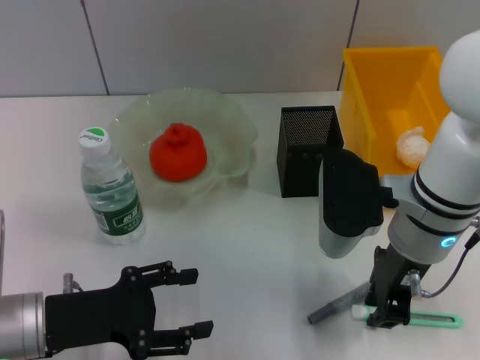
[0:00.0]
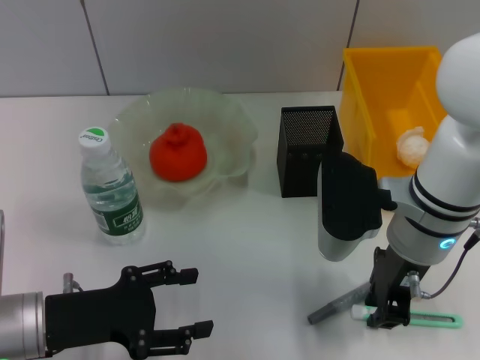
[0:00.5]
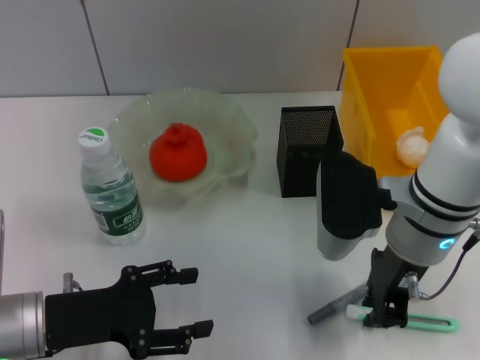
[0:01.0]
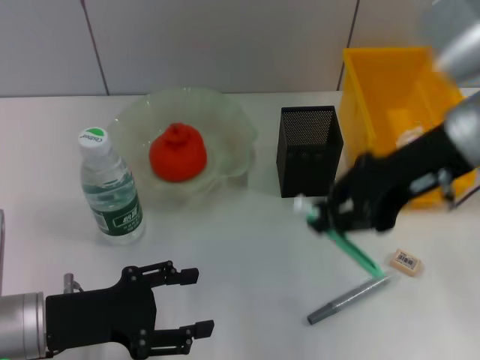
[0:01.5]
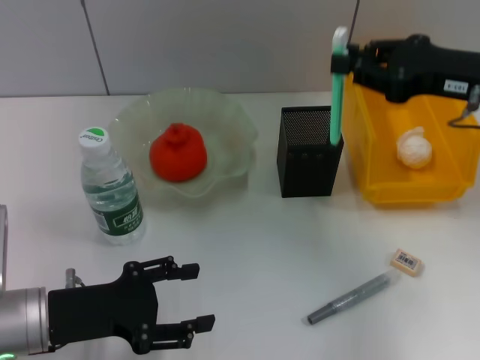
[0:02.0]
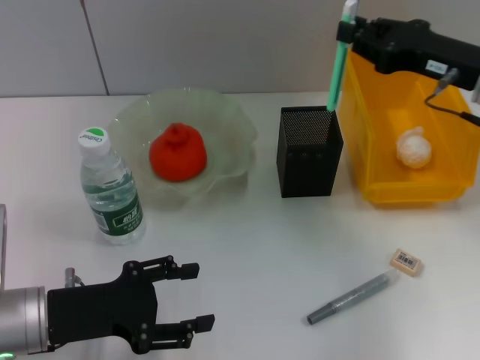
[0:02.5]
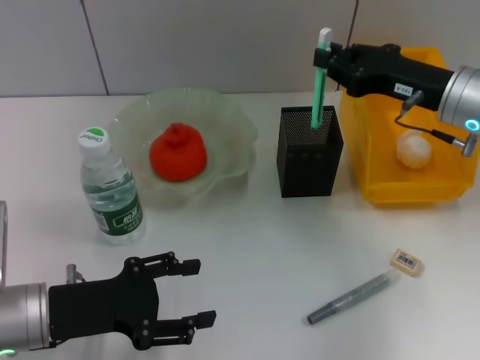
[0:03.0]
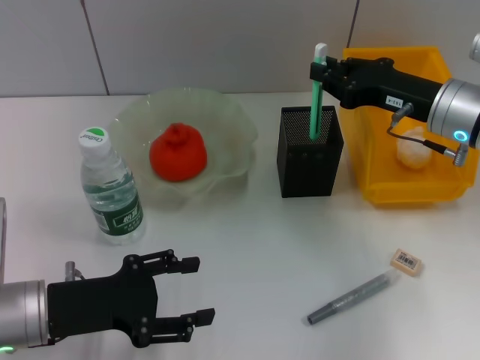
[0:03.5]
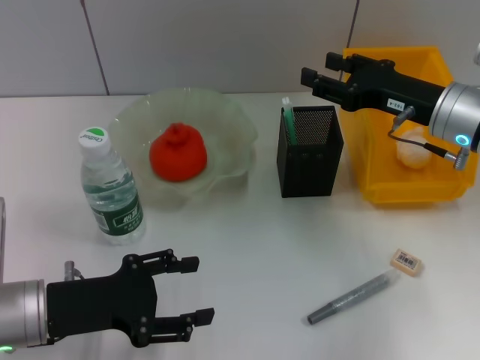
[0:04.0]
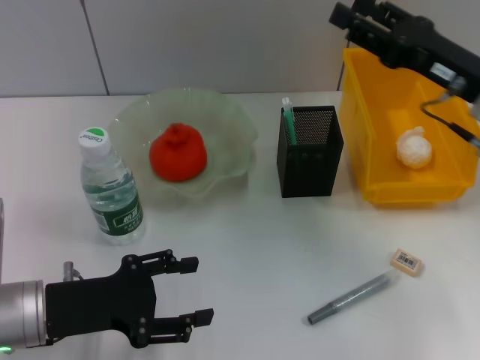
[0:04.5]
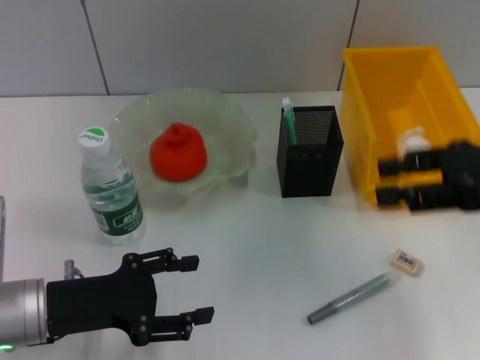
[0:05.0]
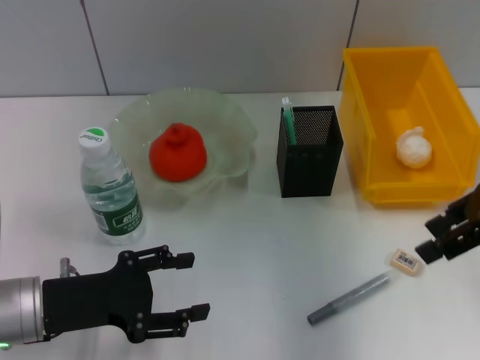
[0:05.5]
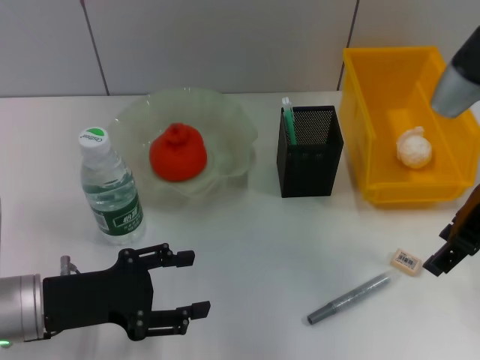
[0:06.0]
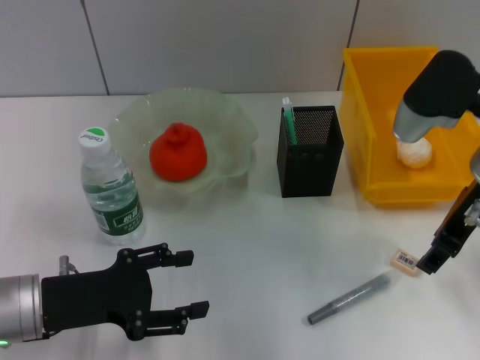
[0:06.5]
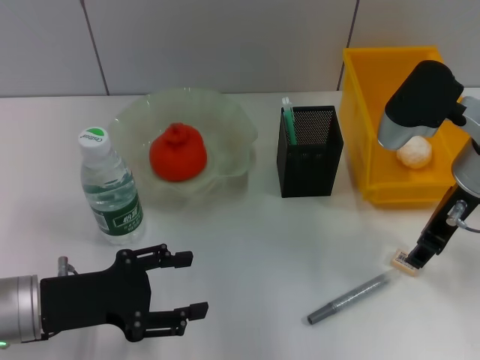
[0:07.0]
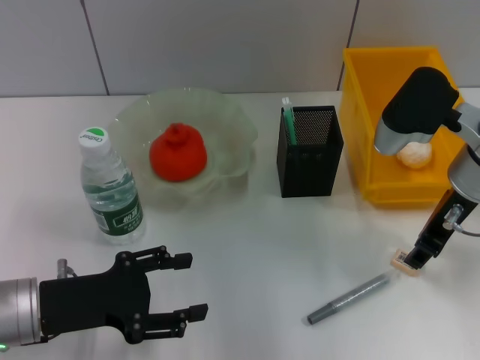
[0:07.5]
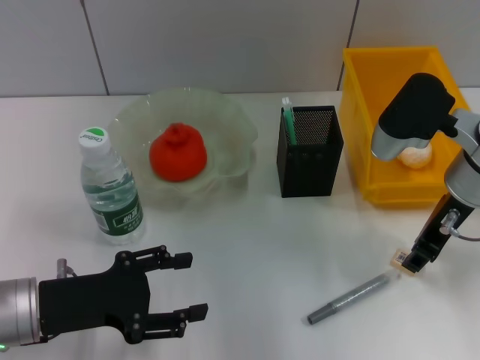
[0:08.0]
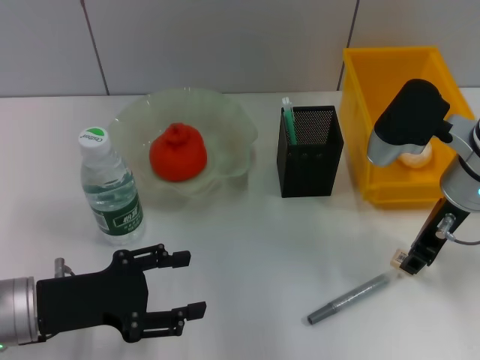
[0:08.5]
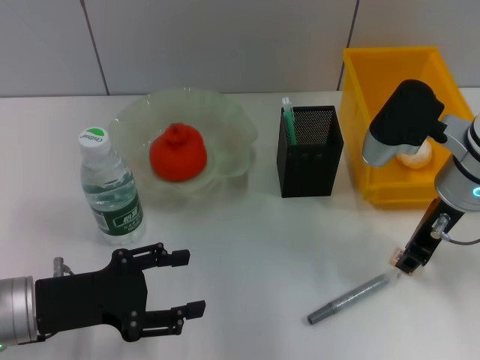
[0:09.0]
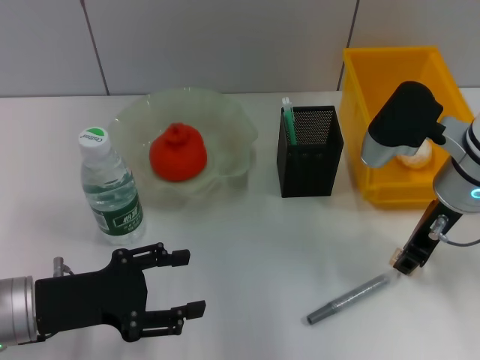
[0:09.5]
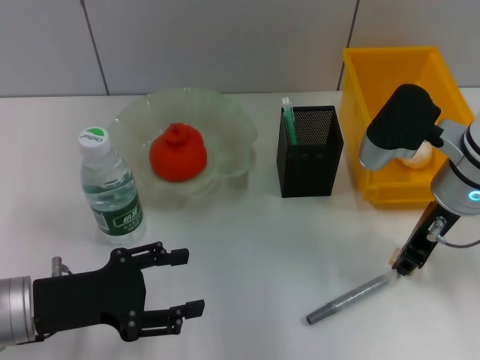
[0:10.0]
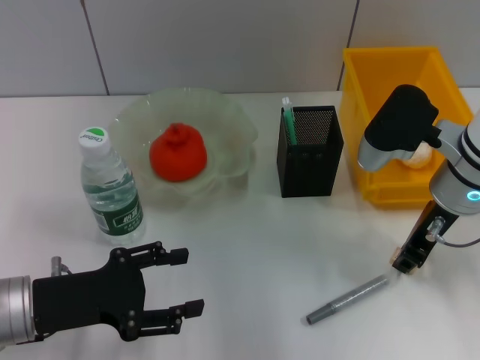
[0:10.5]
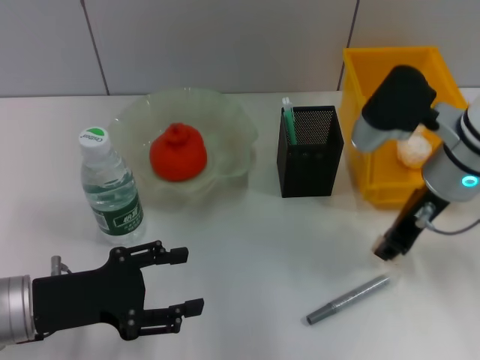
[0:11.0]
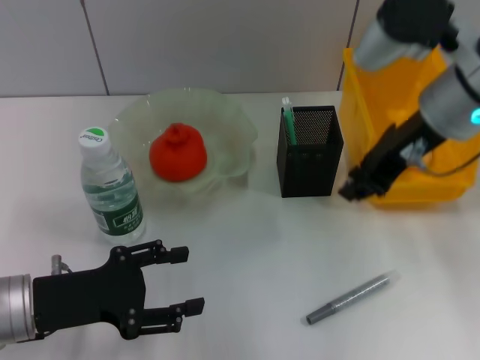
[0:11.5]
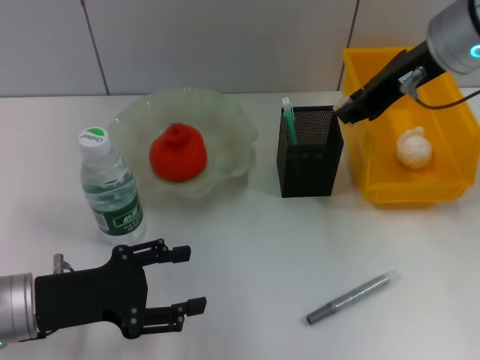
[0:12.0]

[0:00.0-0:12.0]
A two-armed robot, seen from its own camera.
Step, 0:01.0 to 0:03.5: Place the blue utility knife into the pen holder with the right hand.
Step, 0:04.5 to 0:10.5: Grab the eraser with the right hand.
0:00.0 to 0:02.0: The right gripper heads to the right and upward, covering some 15 cm.
0:02.0 to 0:04.0: The right gripper is displaced downward by some 5 cm, and opens its fingers.
0:04.0 to 0:06.0: The right gripper moves upward, approximately 10 cm.
0:06.0 to 0:08.0: The right gripper shifts roughly 5 cm downward.
0:08.0 to 0:10.0: There are only small adjustments of the grippers.
0:10.0 to 0:12.0: The right gripper is displaced upward by about 10 cm.

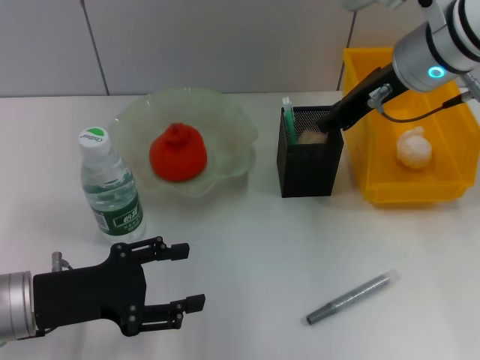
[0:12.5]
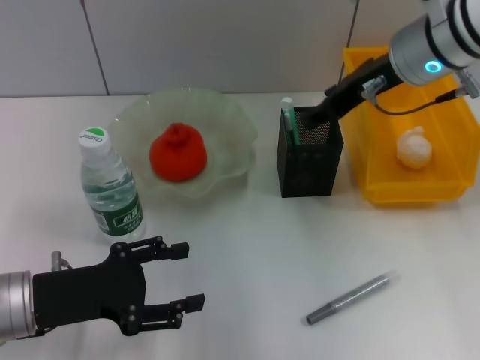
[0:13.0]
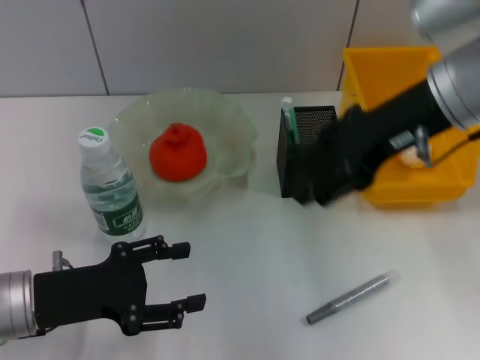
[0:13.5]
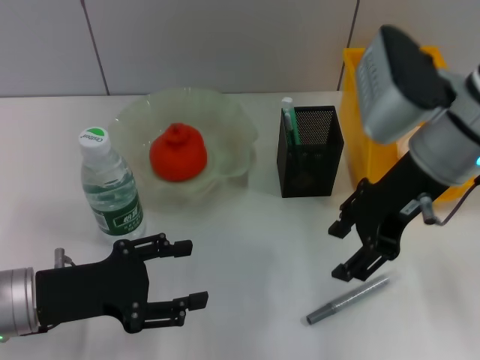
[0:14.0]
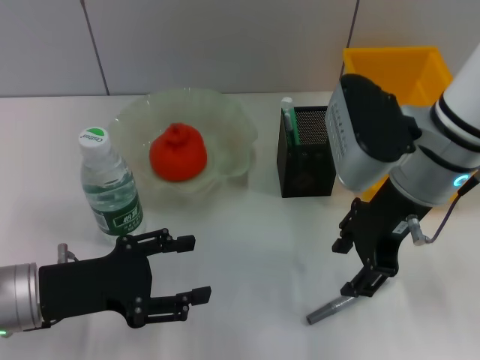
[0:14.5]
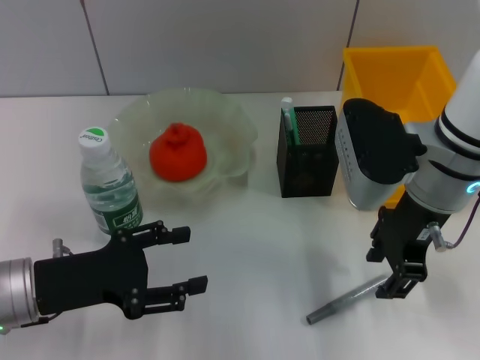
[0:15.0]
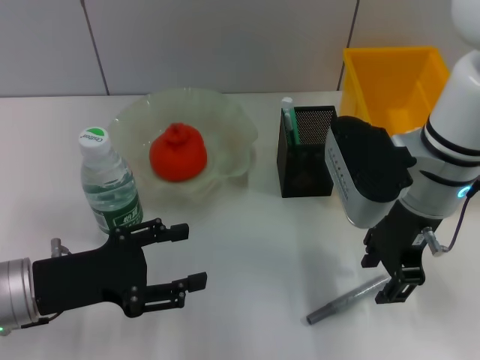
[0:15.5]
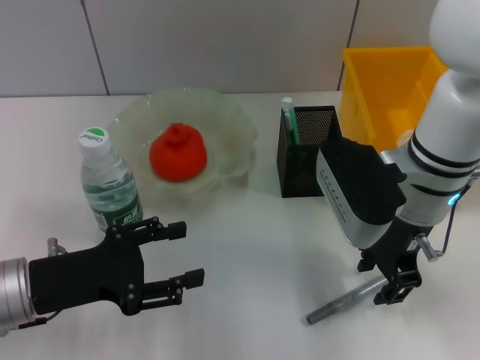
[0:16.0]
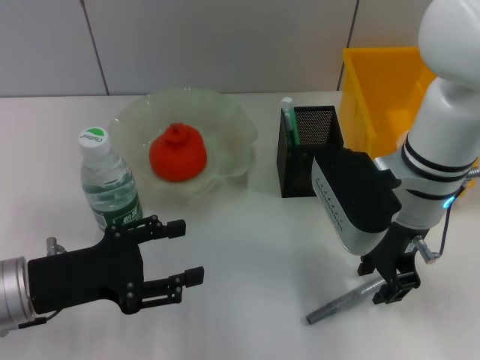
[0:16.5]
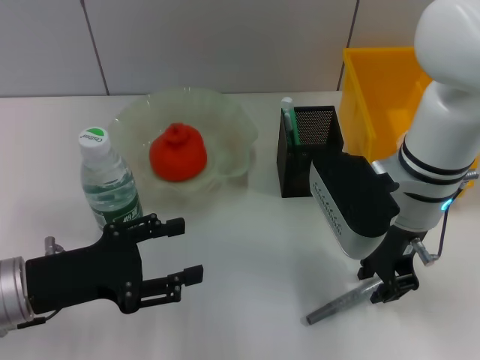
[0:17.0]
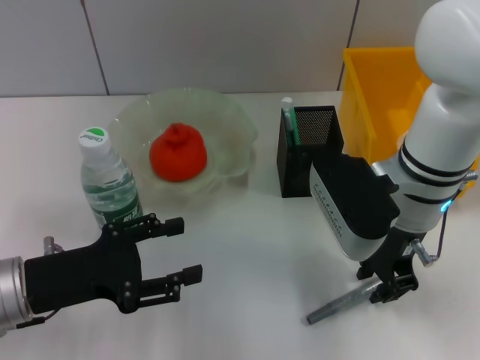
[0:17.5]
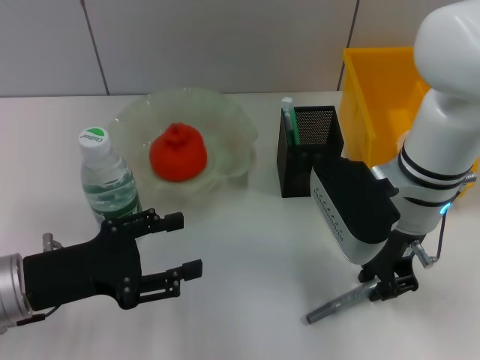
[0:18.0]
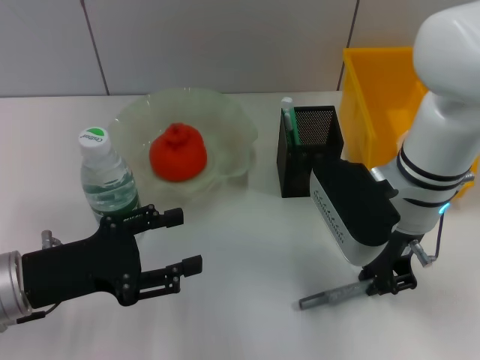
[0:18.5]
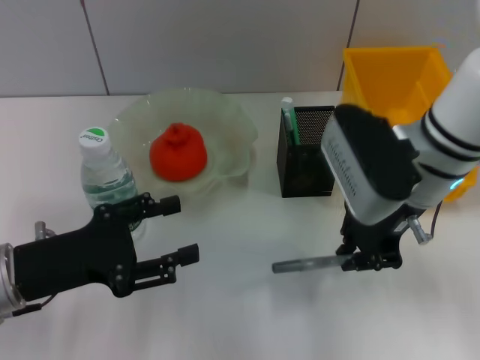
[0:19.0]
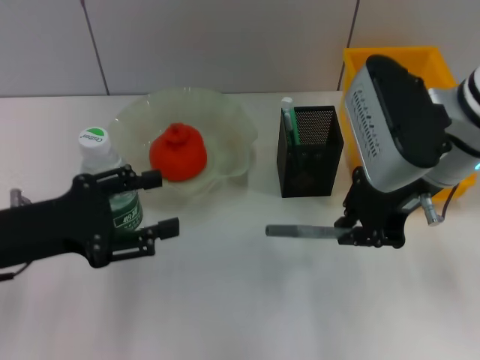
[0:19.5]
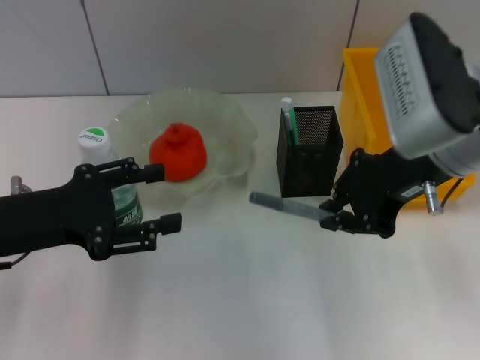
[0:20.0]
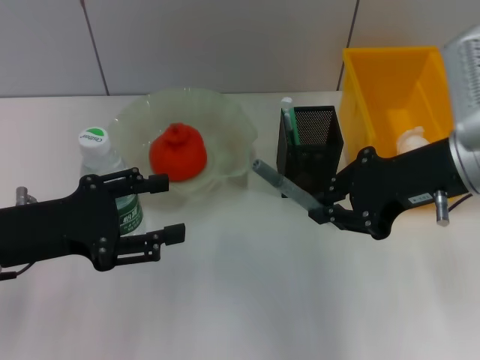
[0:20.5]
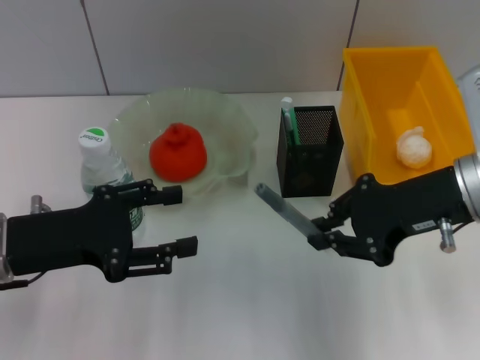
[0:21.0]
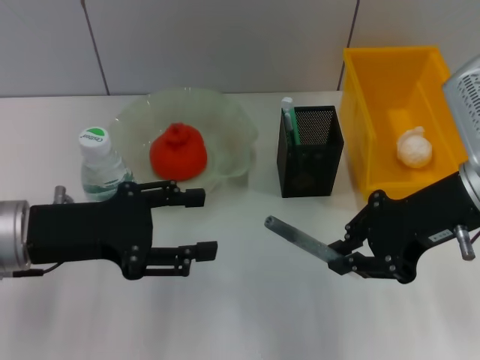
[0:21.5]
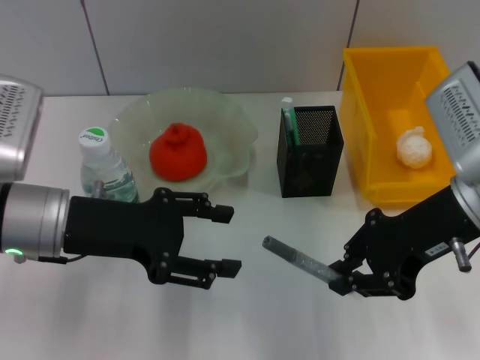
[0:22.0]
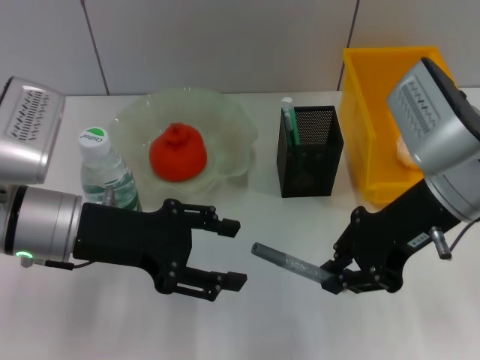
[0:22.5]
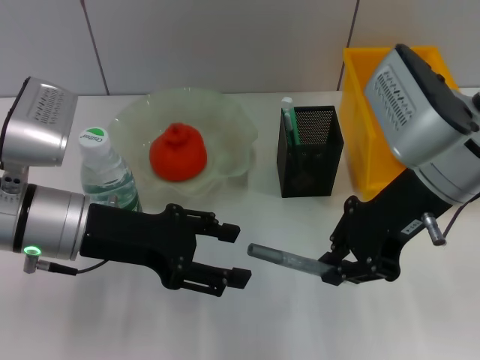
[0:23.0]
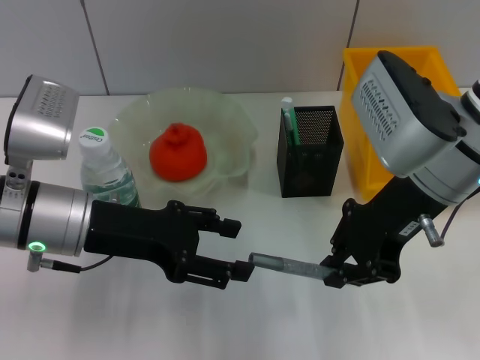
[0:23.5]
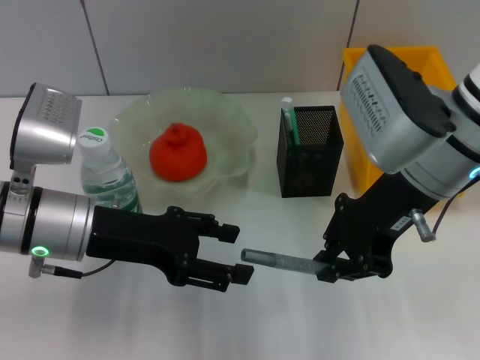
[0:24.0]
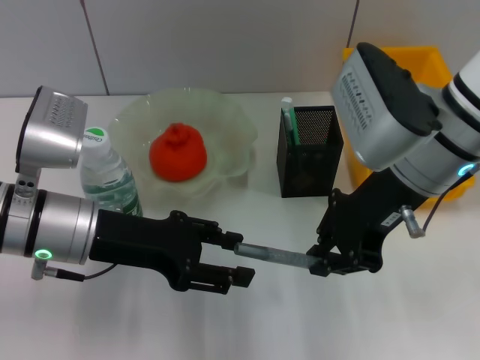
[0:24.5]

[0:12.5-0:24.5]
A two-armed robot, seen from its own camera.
Step, 0:13.0 to 0:18.0: Grab the gray glue with the right hand.
0:12.5 to 0:14.5: The right gripper goes about 5 cm backward, and opens its fingers.
0:16.5 to 0:18.5: The right gripper closes.
0:18.5 to 0:20.5: The left gripper changes place by about 5 cm. The right gripper goes approximately 10 cm upward and to the right.
0:20.5 to 0:22.5: The left gripper goes roughly 5 cm to the right.

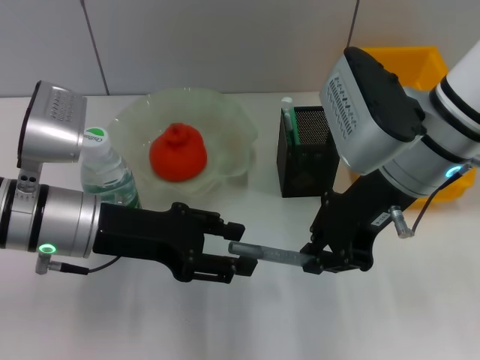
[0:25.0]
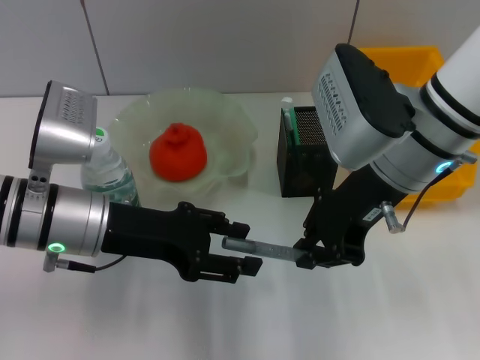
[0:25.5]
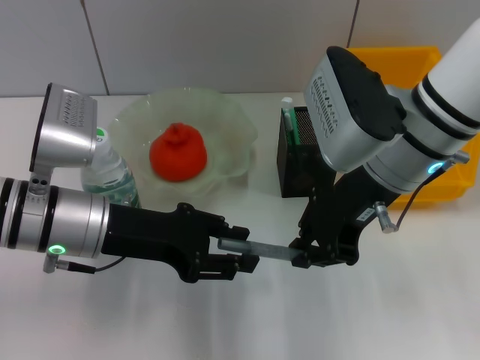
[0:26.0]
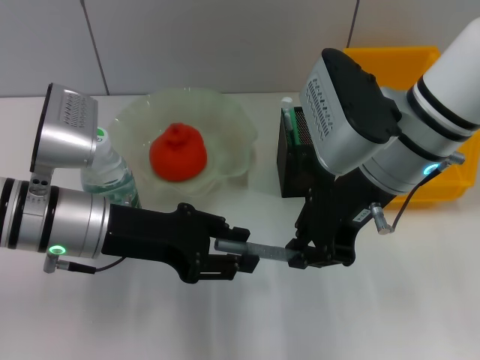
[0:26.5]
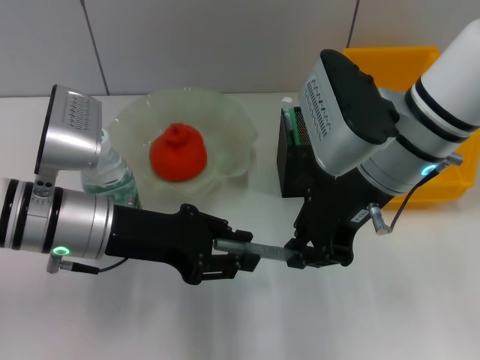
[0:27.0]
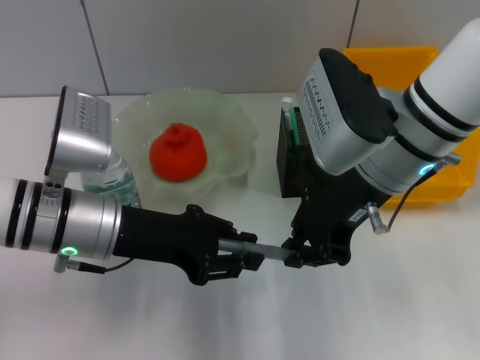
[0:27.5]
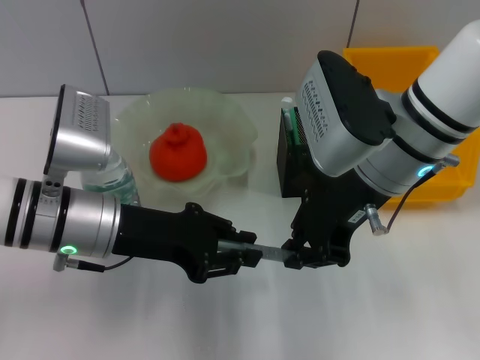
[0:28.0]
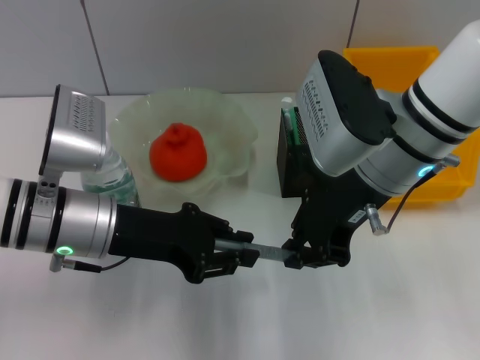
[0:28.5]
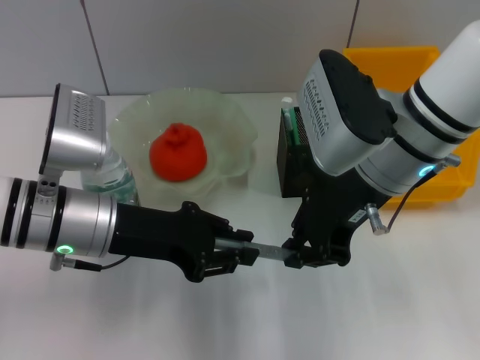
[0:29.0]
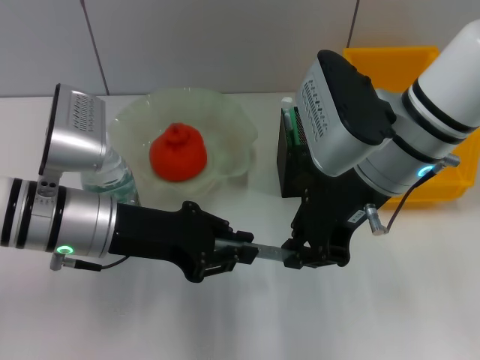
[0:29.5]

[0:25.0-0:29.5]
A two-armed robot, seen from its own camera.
0:25.0 to 0:27.0: The left gripper closes up.
0:27.0 to 0:29.5: Neither gripper changes place.
